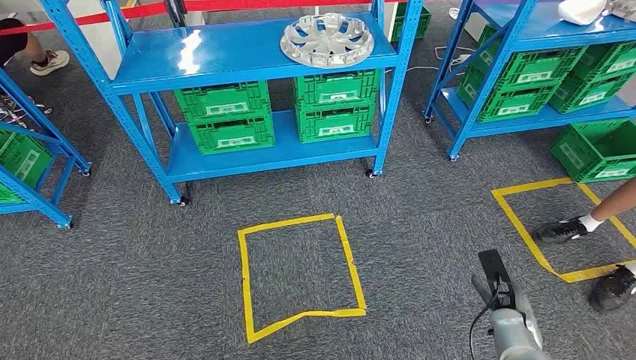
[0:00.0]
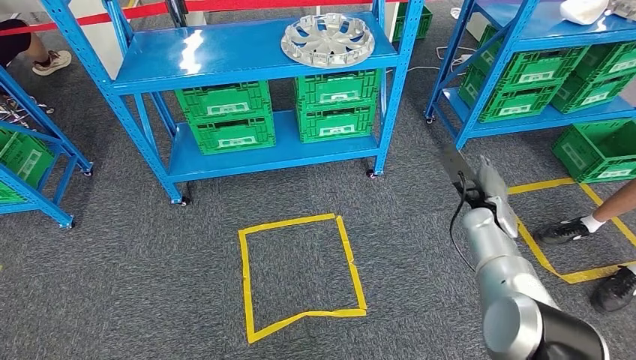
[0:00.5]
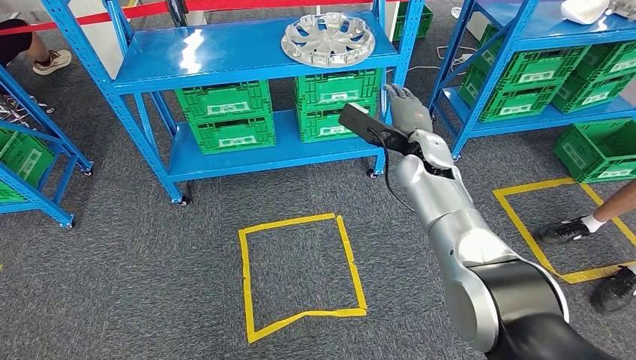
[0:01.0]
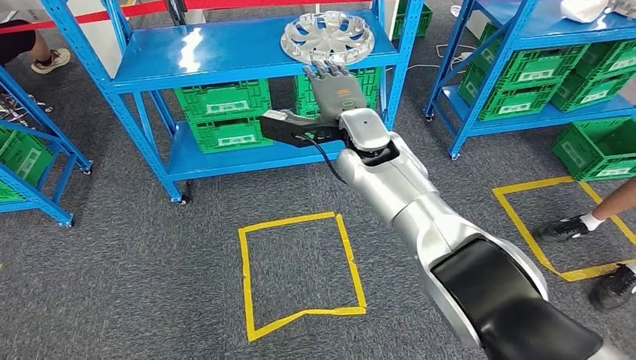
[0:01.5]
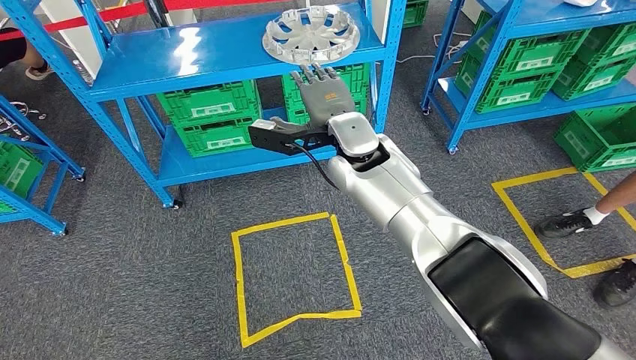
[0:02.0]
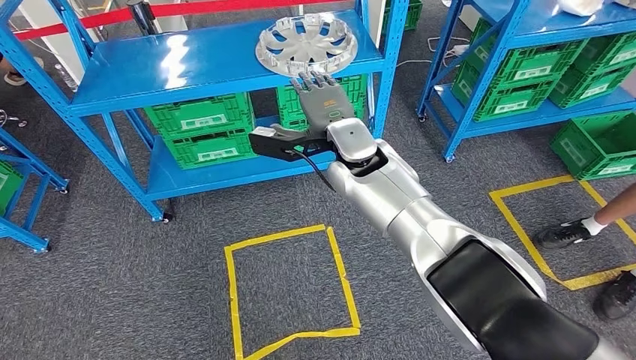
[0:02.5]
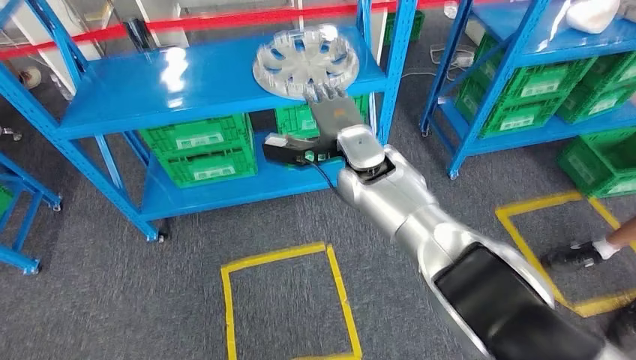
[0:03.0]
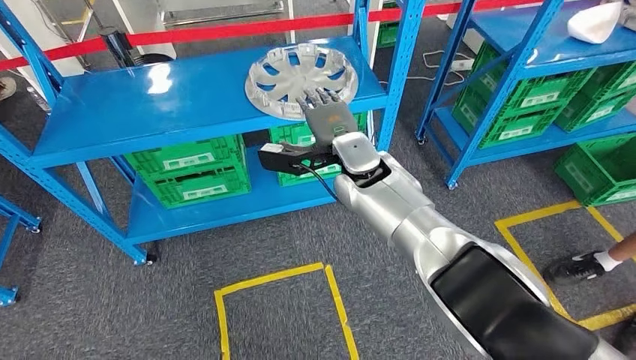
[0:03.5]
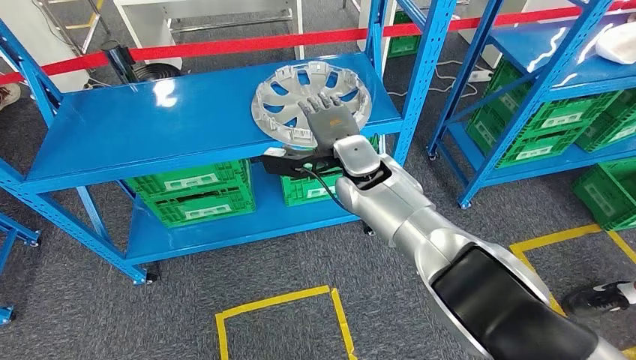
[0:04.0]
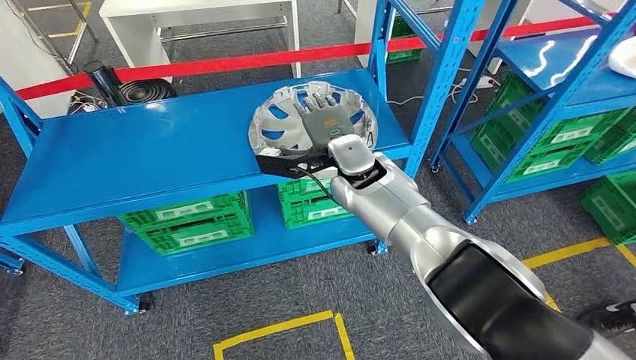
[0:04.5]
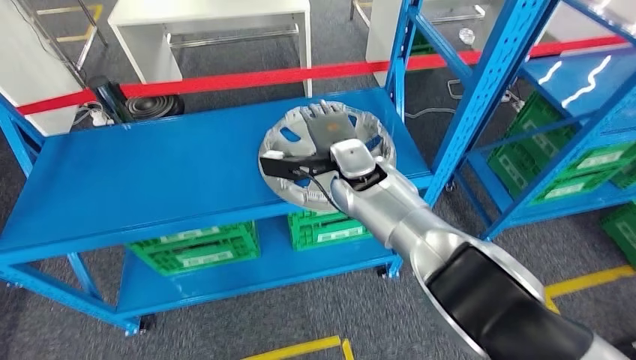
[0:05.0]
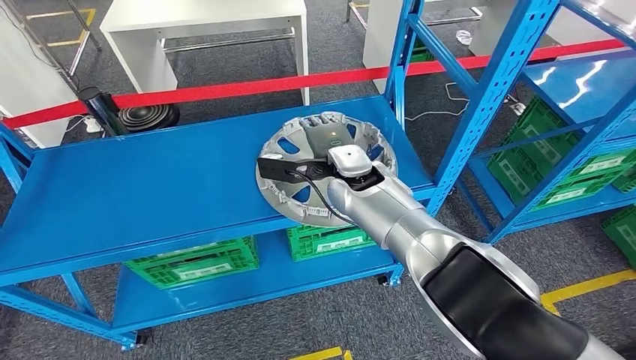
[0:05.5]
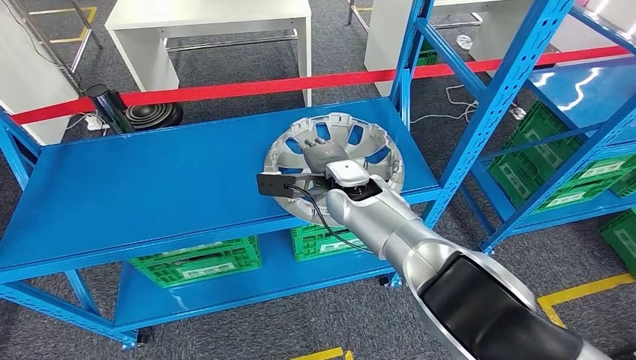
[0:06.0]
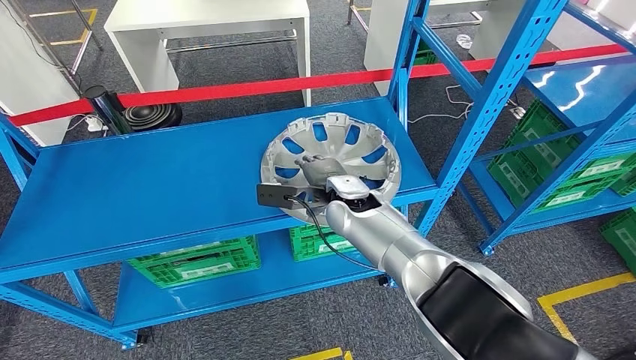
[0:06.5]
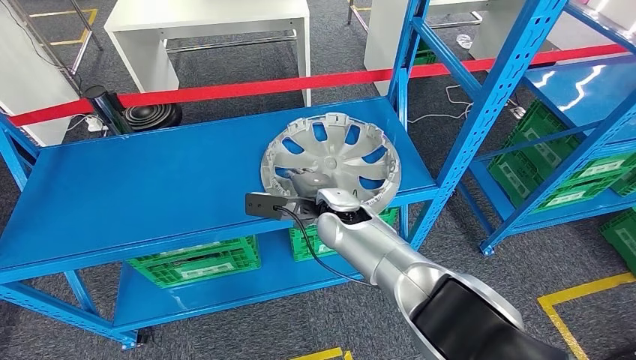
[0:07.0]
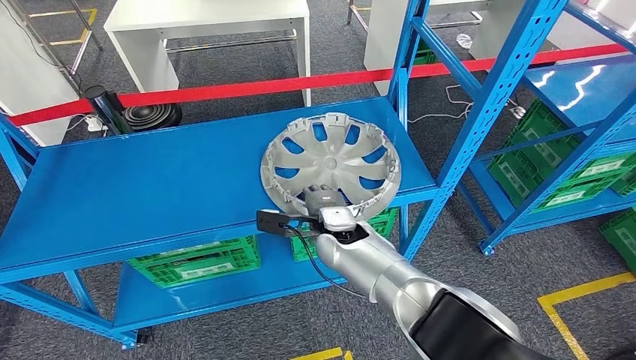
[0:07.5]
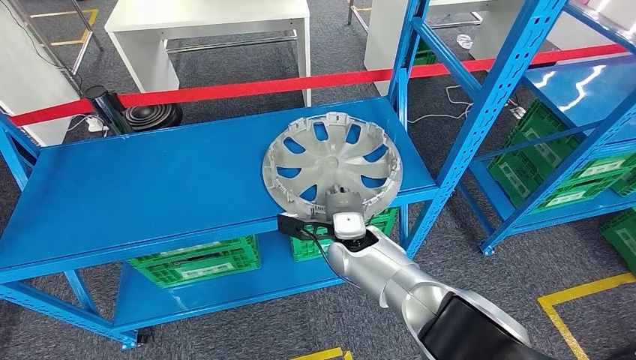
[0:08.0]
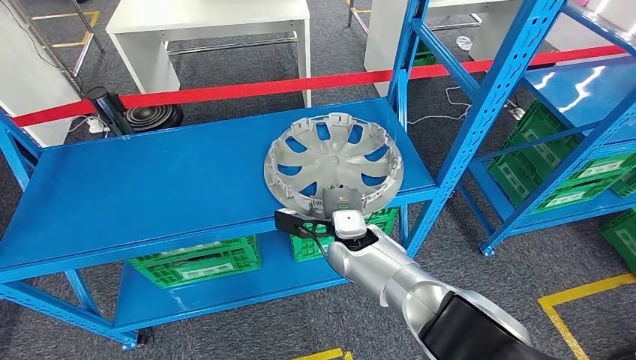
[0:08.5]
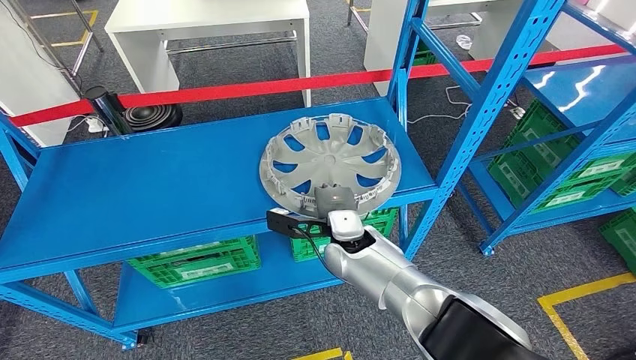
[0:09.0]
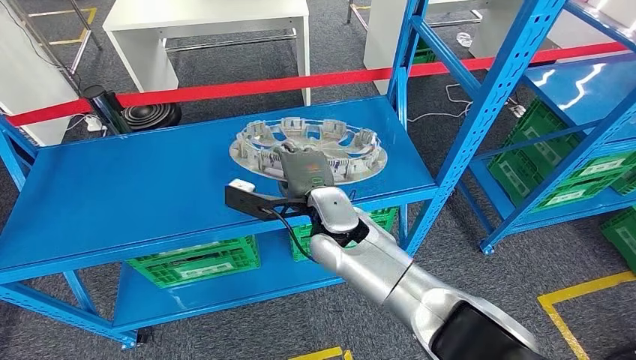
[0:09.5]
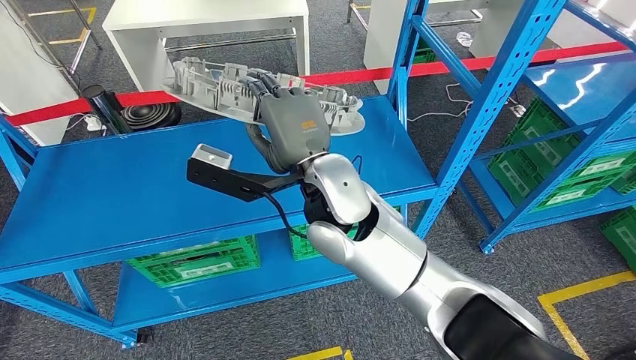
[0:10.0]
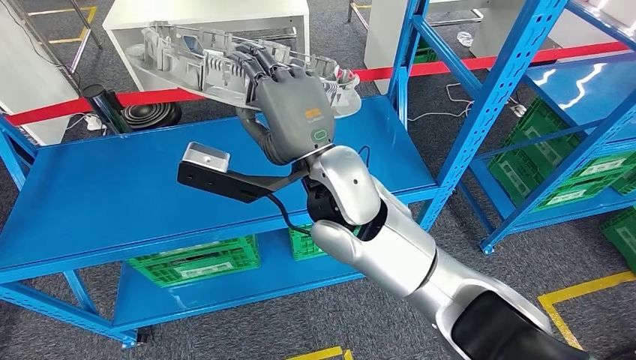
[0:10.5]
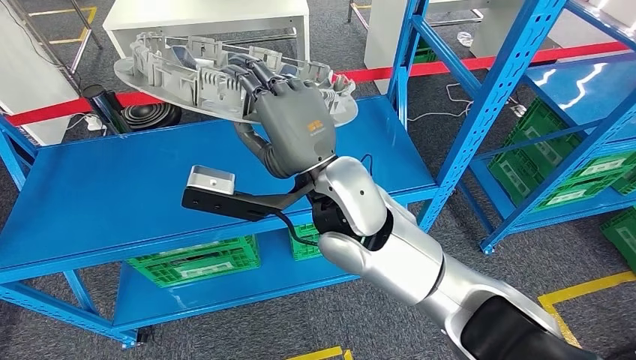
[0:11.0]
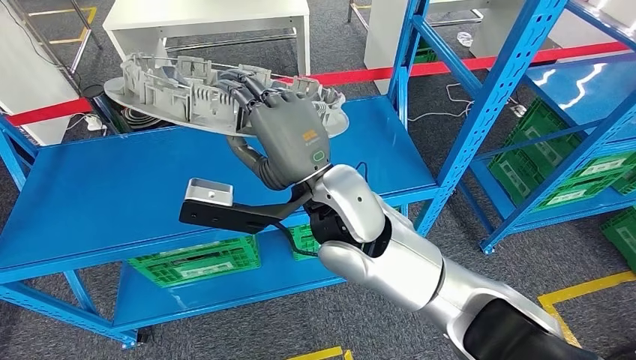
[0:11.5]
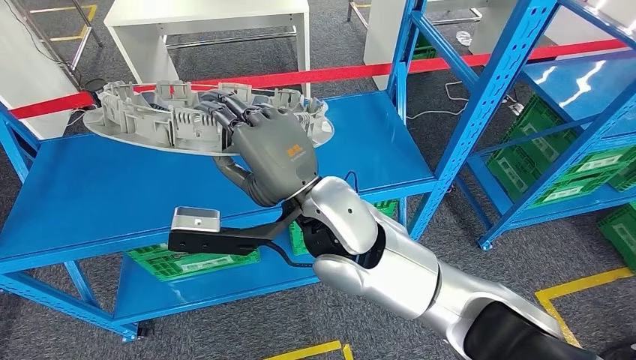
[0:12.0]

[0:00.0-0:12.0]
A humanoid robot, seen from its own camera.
Step, 0:00.0 to 0:09.5: Pick up the small component from the shelf.
0:06.0 to 0:08.0: The right hand travels downward and backward by about 10 cm.
0:08.0 to 0:10.0: The right hand travels upward by some 20 cm.

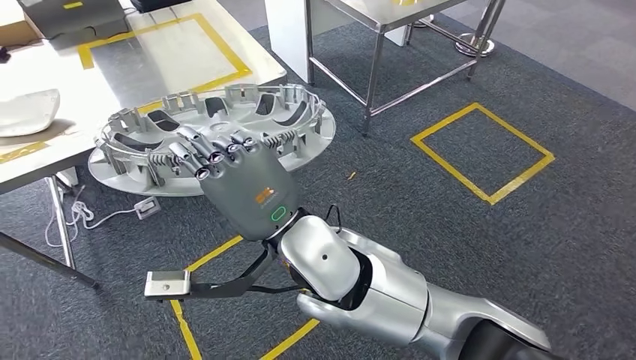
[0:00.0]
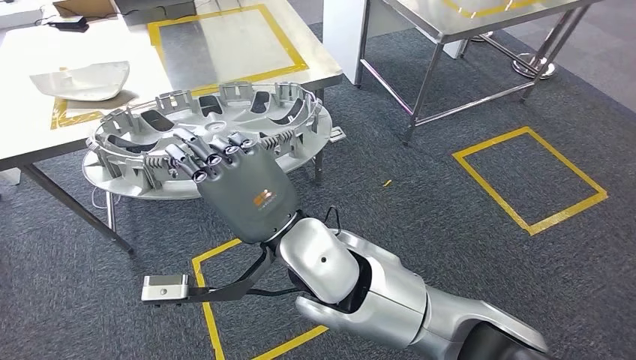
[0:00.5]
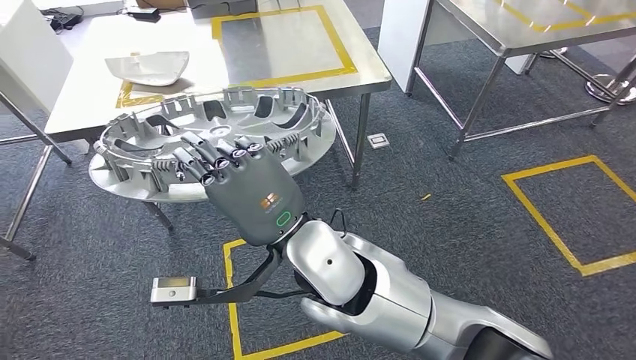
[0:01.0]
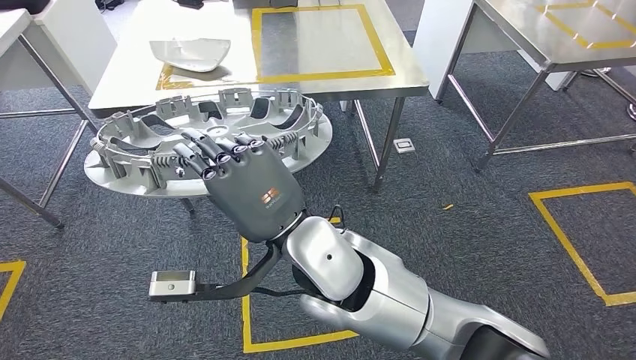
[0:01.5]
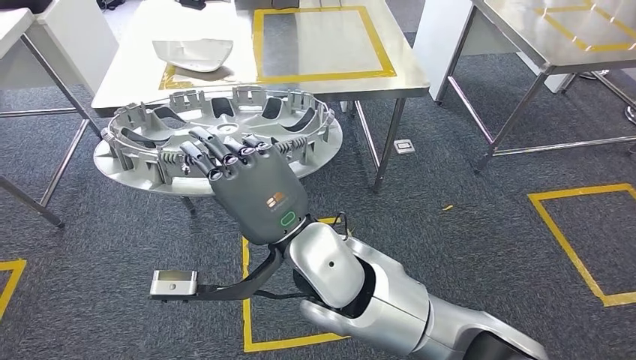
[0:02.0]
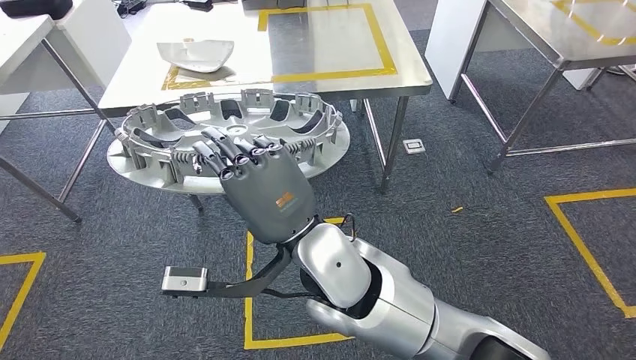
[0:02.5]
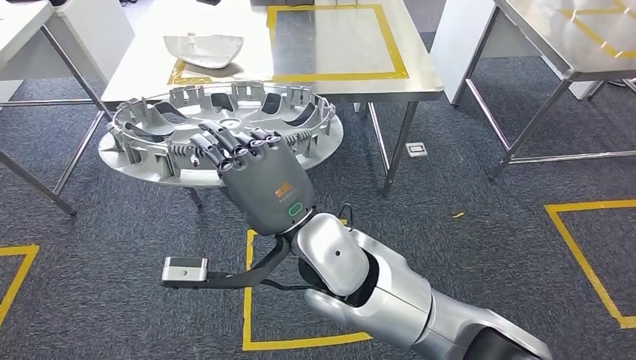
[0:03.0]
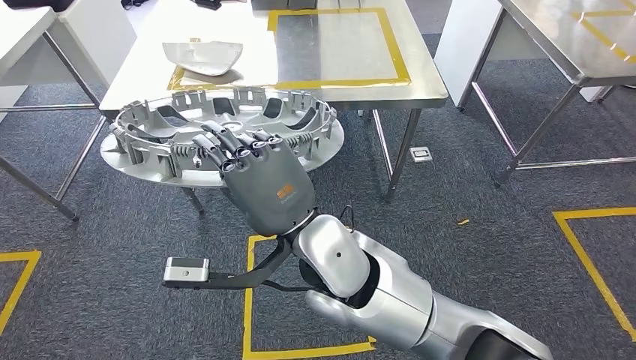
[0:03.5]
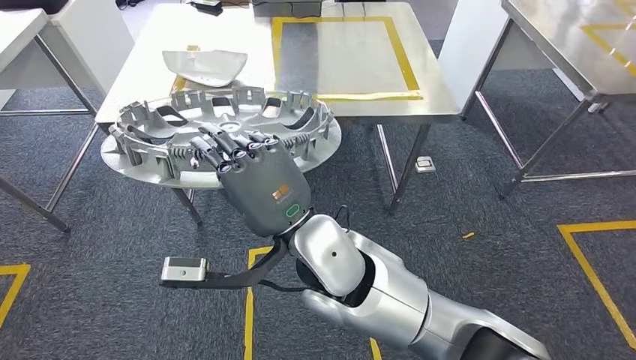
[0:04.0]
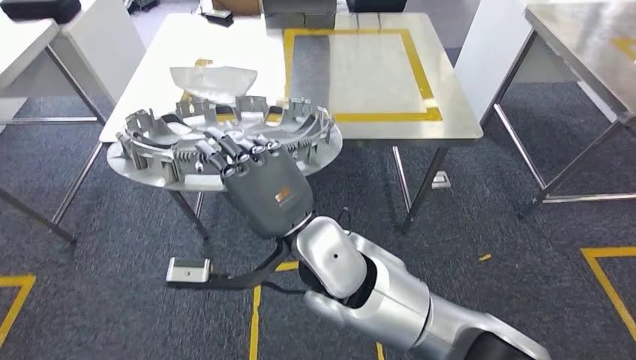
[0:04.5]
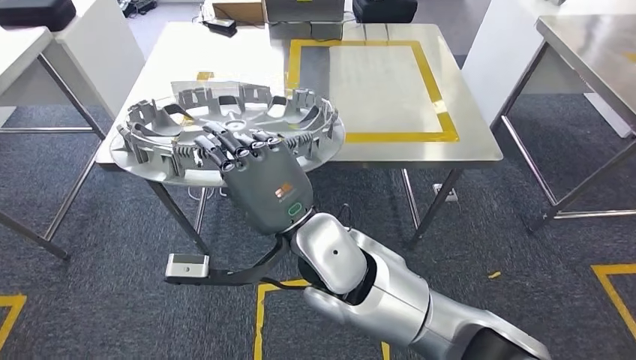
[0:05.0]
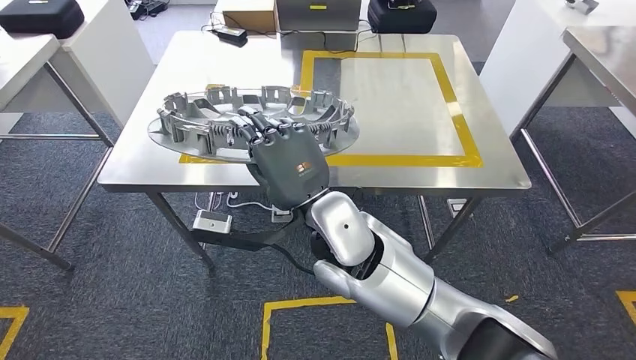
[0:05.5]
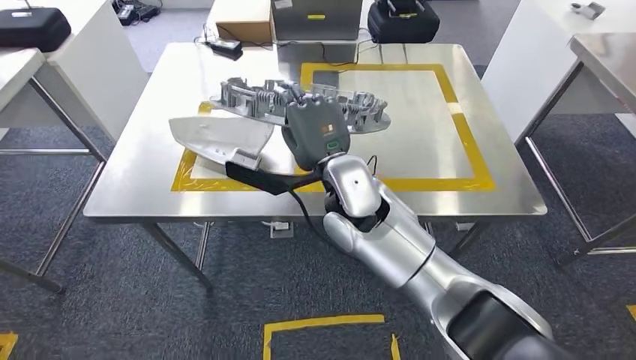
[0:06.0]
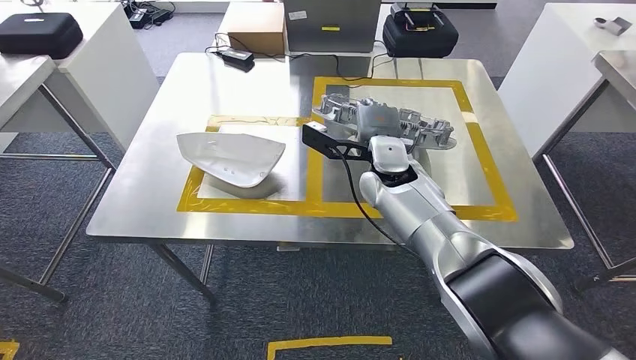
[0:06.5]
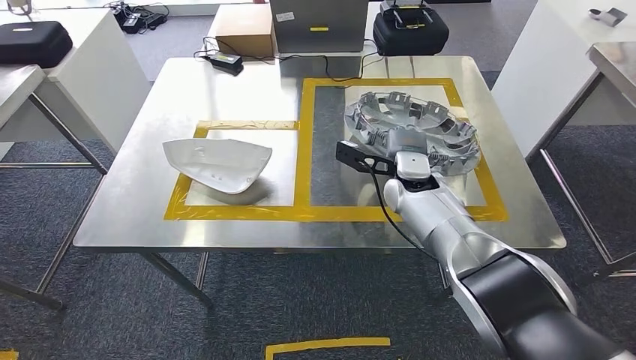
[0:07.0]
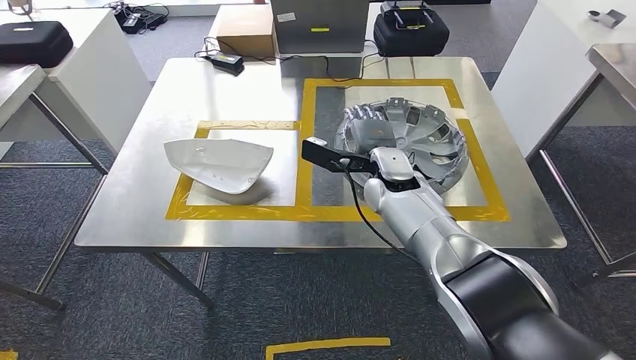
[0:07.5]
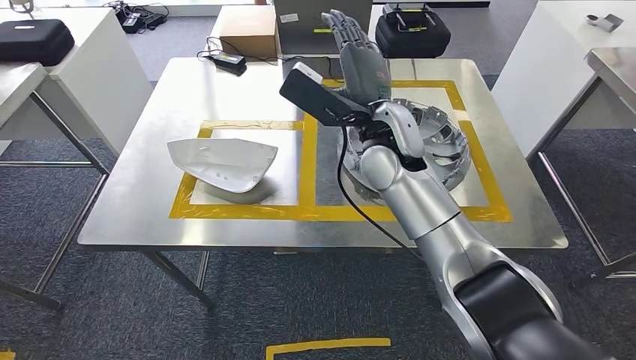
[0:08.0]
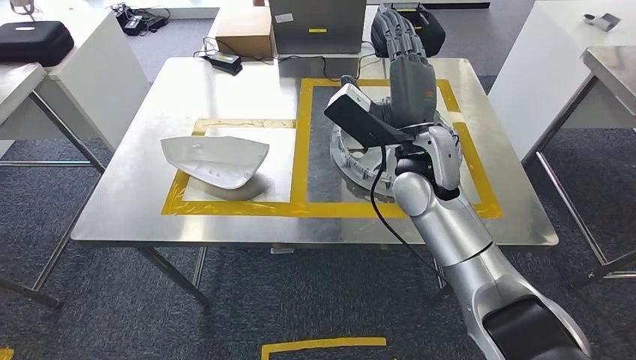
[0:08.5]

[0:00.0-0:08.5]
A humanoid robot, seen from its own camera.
Step, 0:00.0 to 0:05.0: Bring the small component to the front of the workbench.
Step, 0:05.5 to 0:08.0: Insert the small component into the corresponding slot on the workbench.
